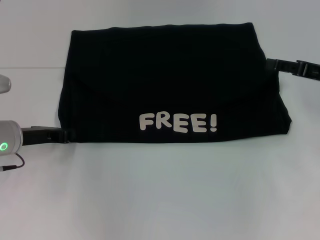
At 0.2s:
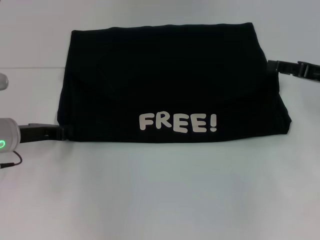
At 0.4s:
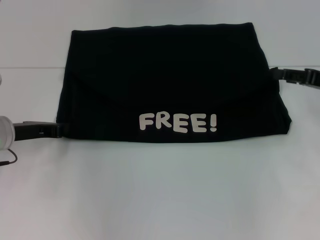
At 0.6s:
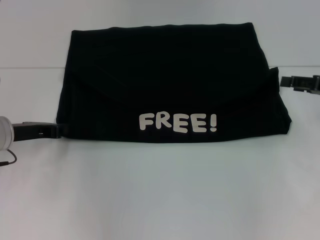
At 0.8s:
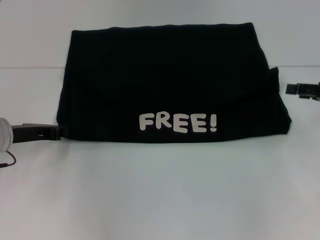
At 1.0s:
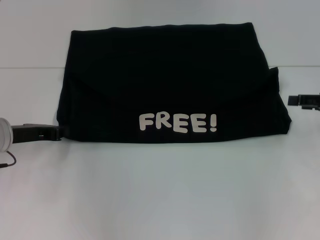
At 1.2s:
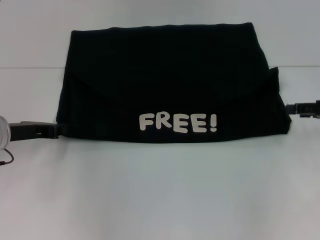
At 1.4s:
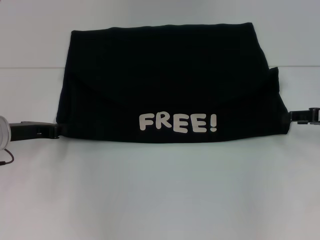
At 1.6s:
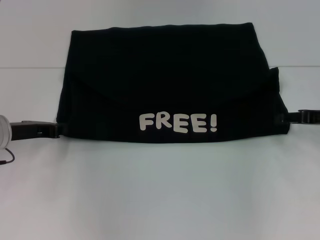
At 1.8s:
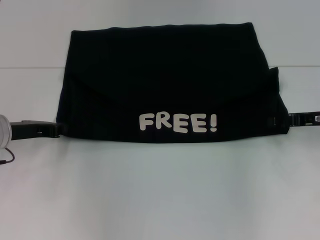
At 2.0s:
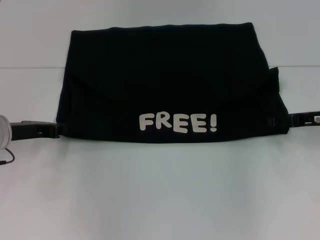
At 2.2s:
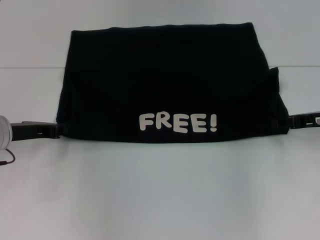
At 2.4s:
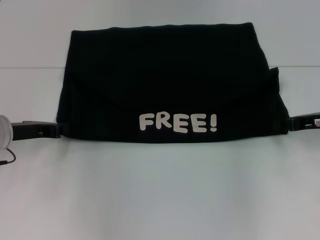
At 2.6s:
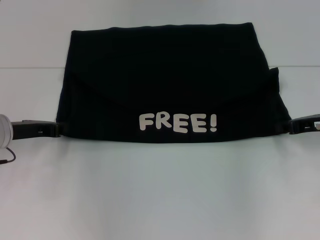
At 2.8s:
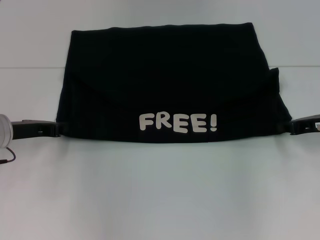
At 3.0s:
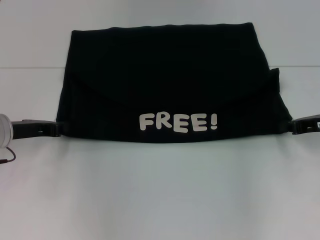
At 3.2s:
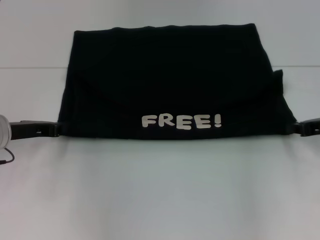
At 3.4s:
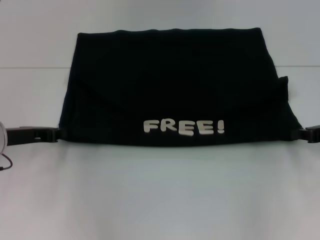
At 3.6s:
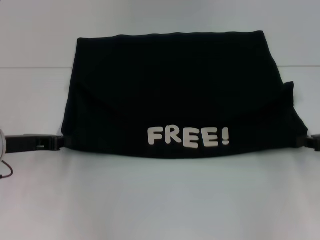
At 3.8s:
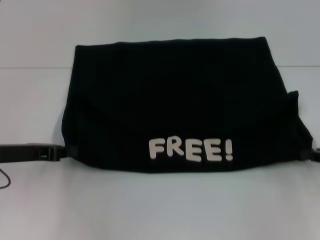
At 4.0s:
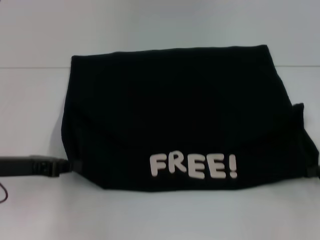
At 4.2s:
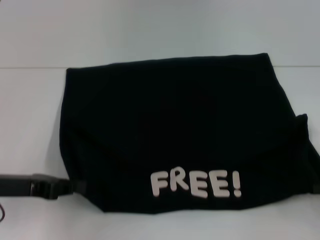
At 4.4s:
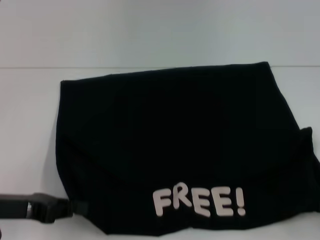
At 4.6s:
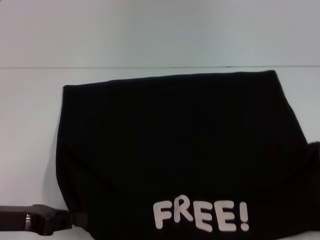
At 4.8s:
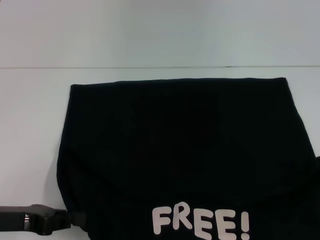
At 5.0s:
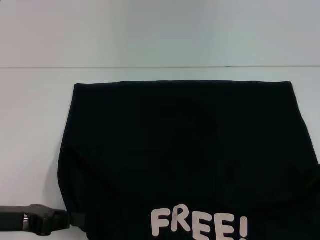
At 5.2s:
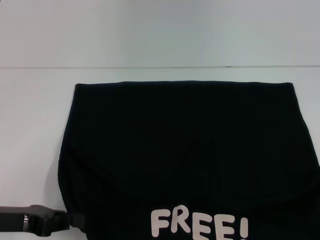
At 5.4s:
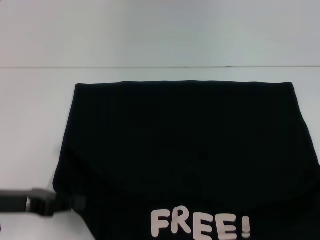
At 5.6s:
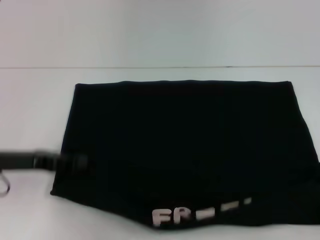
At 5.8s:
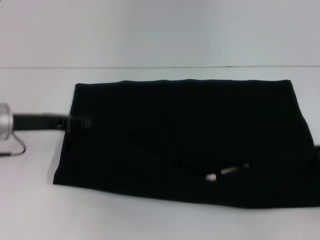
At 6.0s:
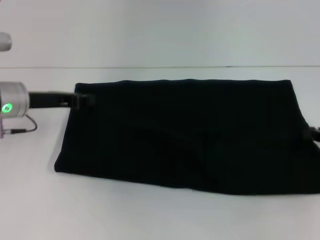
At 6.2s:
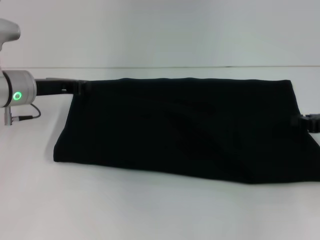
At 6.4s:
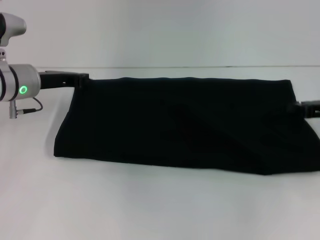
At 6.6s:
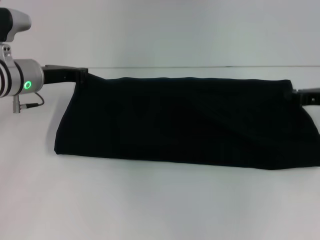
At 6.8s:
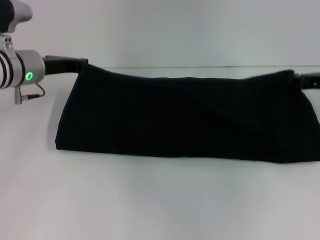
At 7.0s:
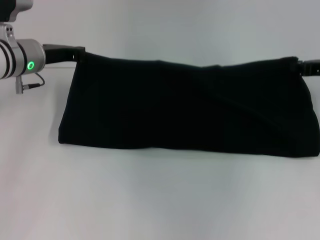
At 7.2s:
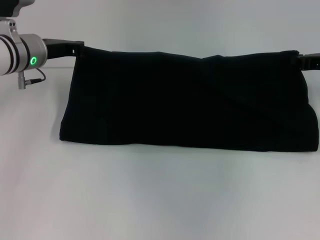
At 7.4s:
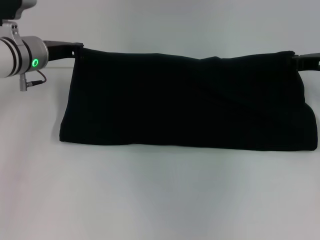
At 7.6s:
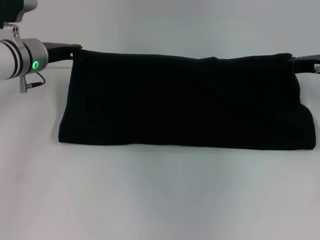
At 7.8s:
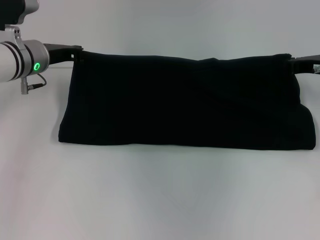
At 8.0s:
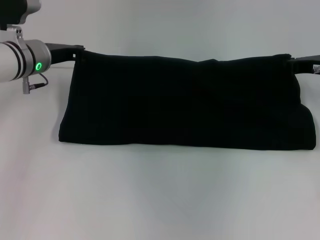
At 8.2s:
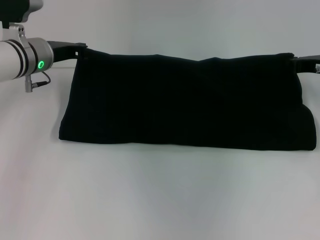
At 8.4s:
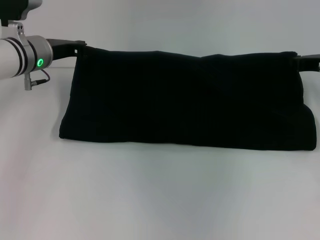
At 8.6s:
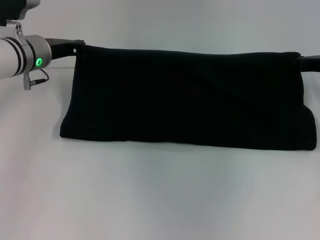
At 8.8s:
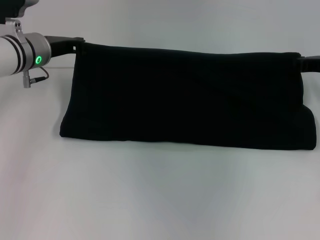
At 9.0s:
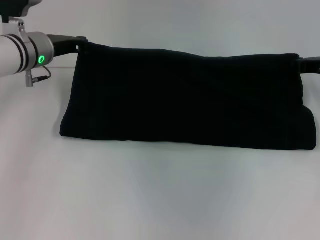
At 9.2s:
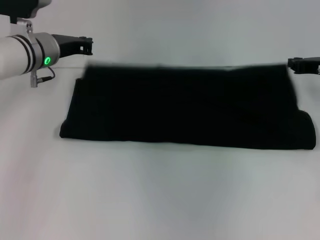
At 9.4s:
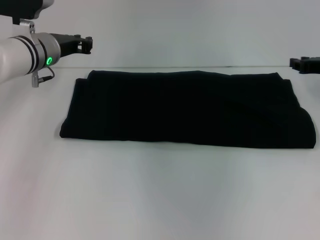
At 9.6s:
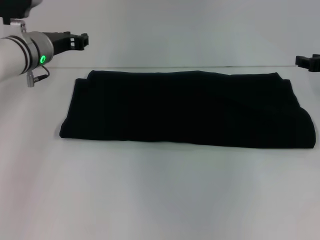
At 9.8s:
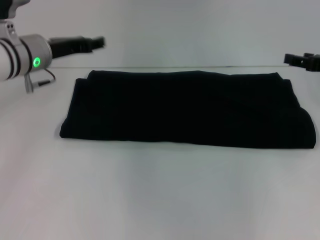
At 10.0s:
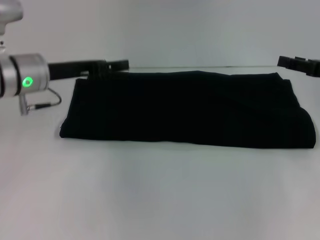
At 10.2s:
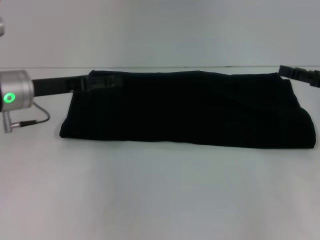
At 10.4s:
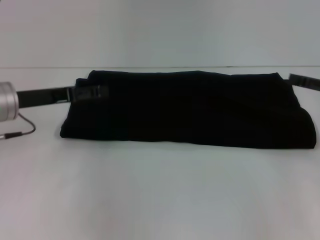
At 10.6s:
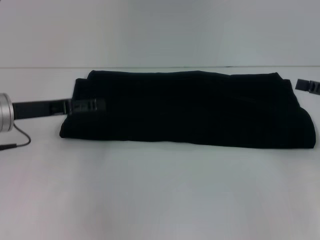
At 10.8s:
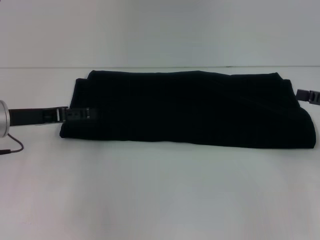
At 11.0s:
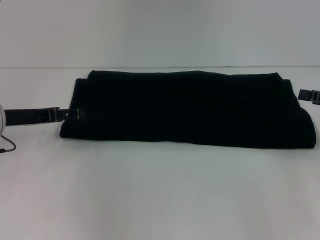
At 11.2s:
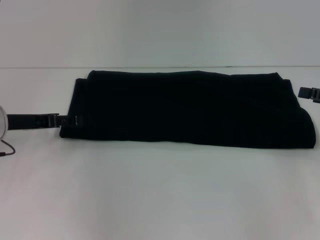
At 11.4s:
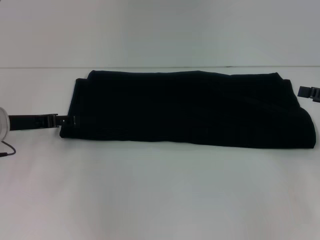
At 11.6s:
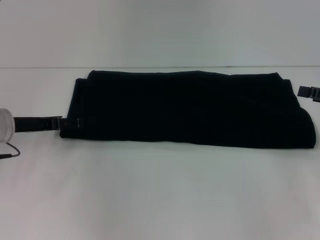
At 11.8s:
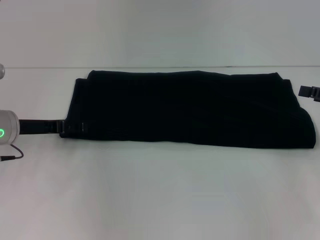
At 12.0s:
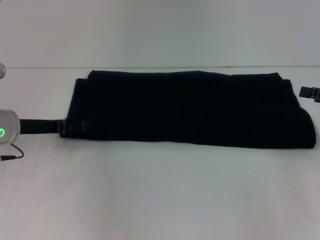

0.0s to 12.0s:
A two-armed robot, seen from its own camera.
Step, 0.0s to 5.0s: Pull the clothes with your left hand.
Step, 0.0s to 5.0s: Pull the clothes with your right hand.
Step, 5.2s to 9.2s: Fold the clothes with your right hand.
1.6s to 3.0s: The right gripper closes up.
3.0s to 4.4s: The left gripper heads backward, covering about 10 cm. Meanwhile the right gripper goes about 15 cm backward and to the right.
4.4s to 6.0s: The right gripper heads forward, covering some 10 cm, while the left gripper is displaced forward by roughly 15 cm.
6.0s to 7.6s: The left gripper heads forward, covering roughly 5 cm, while the right gripper is displaced forward and to the left by about 15 cm.
7.6s to 9.0s: Both grippers stay put.
9.0s to 10.4s: Both grippers move backward, about 10 cm. The right gripper opens; the left gripper opens its fingers.
10.4s to 12.0s: The grippers stay close to where they were, moving slightly.

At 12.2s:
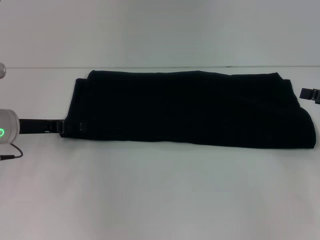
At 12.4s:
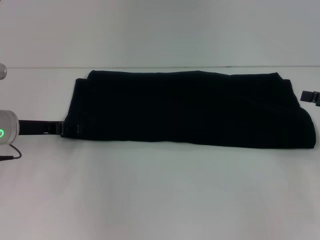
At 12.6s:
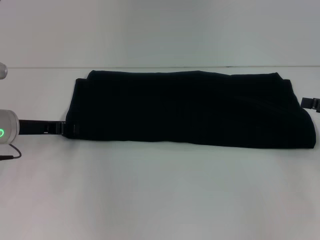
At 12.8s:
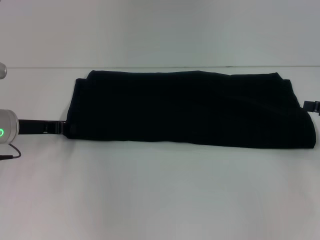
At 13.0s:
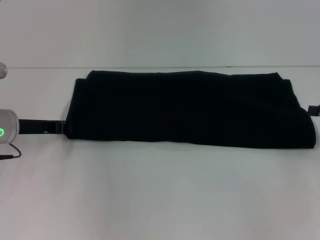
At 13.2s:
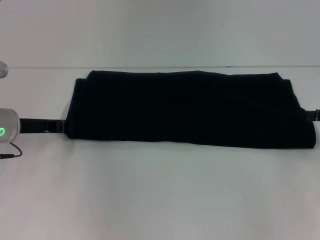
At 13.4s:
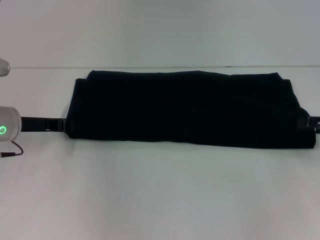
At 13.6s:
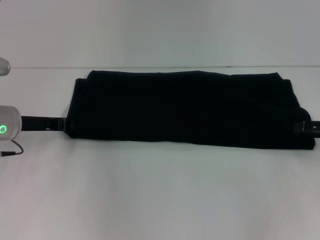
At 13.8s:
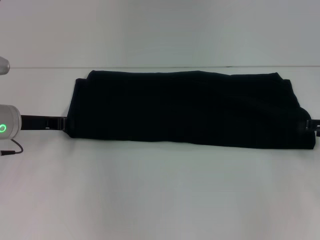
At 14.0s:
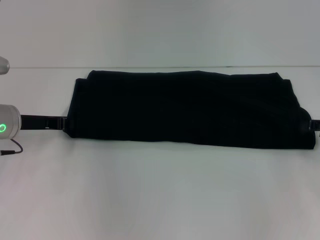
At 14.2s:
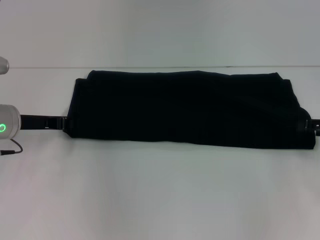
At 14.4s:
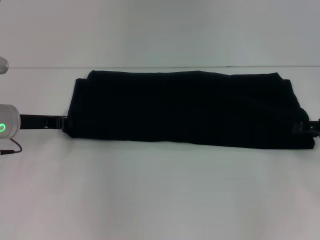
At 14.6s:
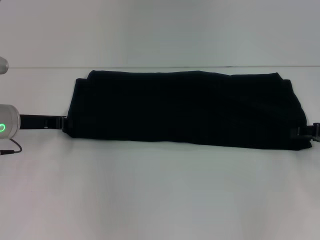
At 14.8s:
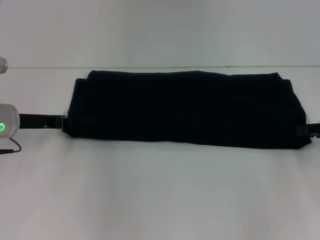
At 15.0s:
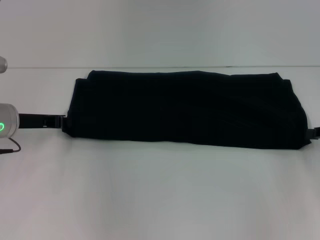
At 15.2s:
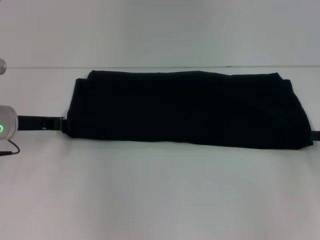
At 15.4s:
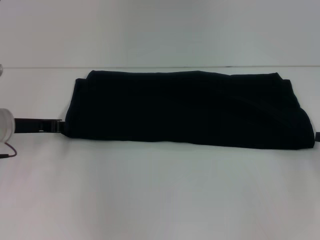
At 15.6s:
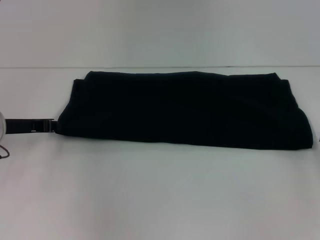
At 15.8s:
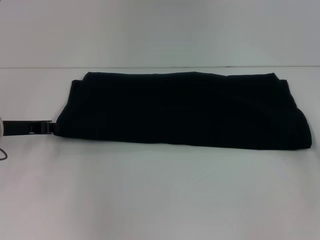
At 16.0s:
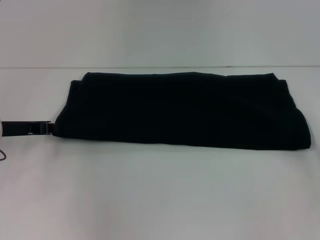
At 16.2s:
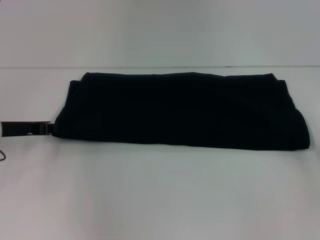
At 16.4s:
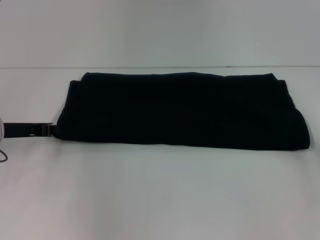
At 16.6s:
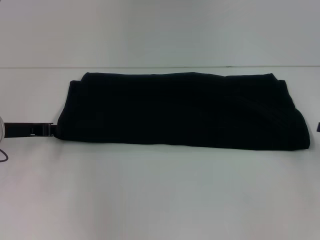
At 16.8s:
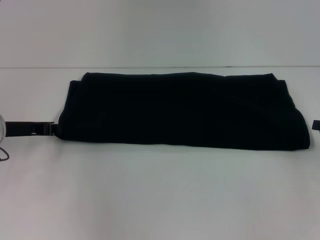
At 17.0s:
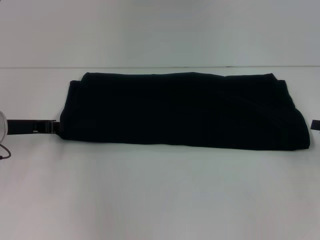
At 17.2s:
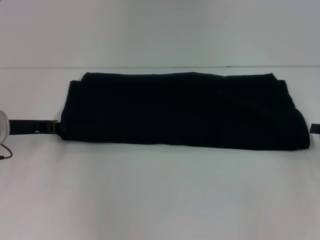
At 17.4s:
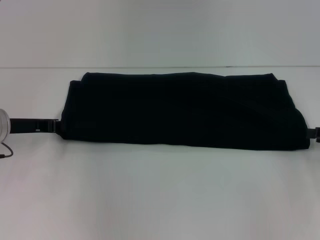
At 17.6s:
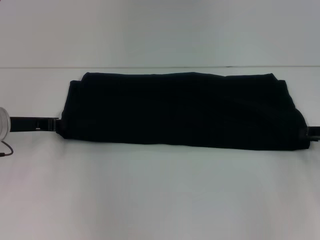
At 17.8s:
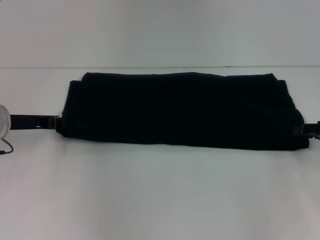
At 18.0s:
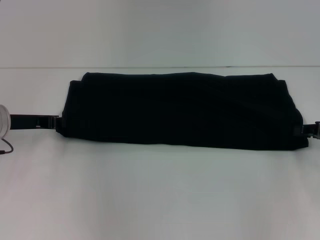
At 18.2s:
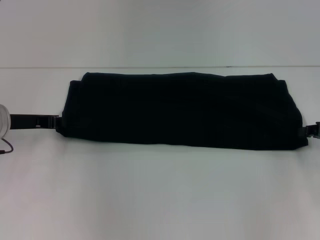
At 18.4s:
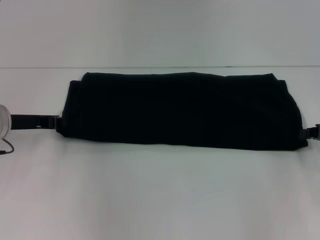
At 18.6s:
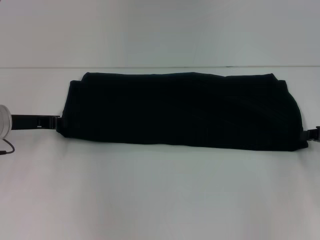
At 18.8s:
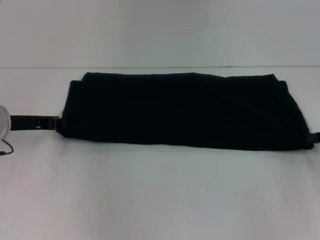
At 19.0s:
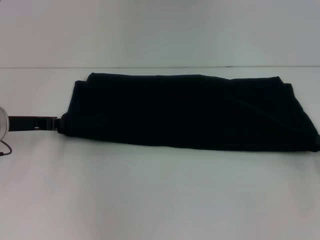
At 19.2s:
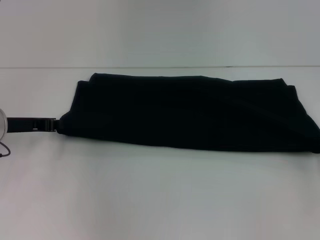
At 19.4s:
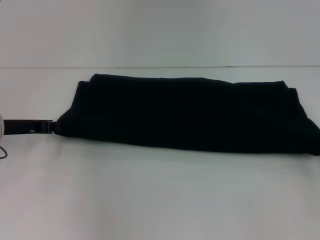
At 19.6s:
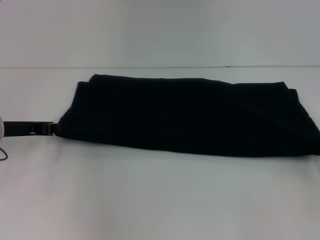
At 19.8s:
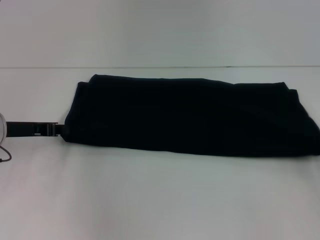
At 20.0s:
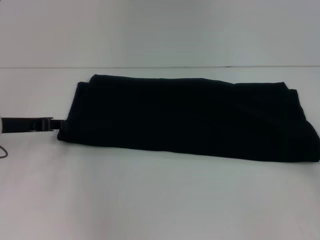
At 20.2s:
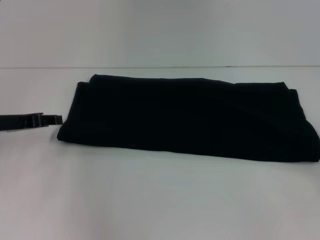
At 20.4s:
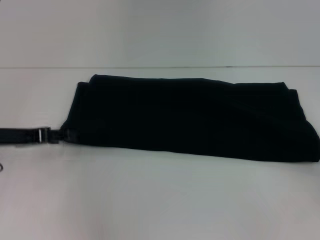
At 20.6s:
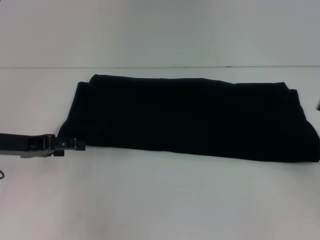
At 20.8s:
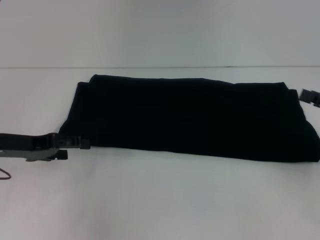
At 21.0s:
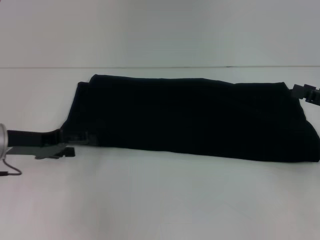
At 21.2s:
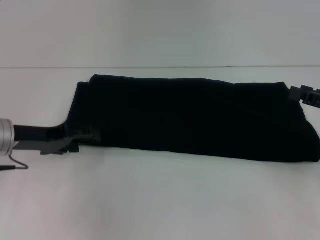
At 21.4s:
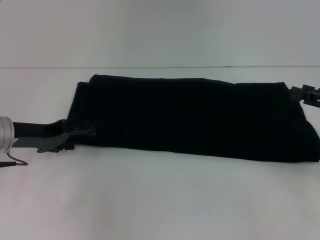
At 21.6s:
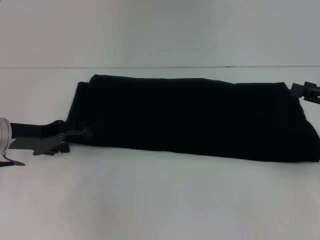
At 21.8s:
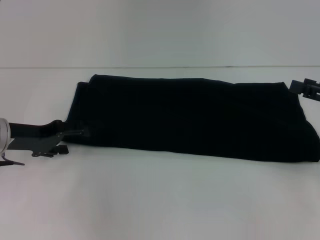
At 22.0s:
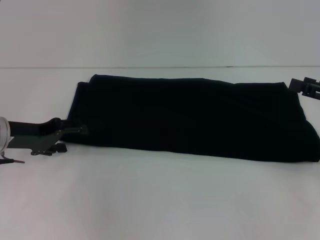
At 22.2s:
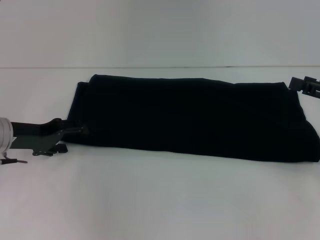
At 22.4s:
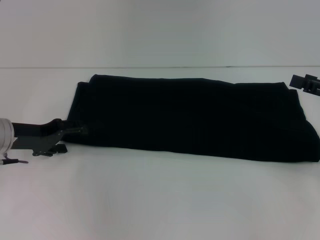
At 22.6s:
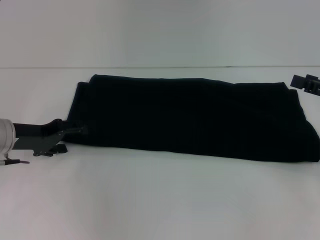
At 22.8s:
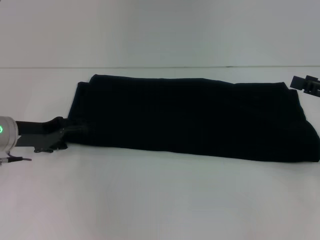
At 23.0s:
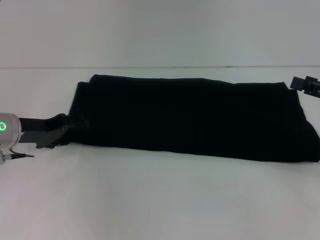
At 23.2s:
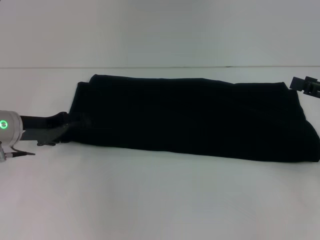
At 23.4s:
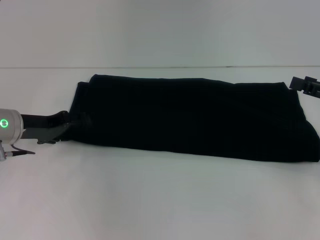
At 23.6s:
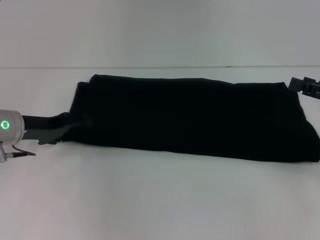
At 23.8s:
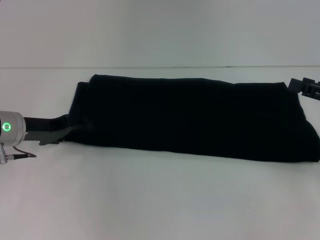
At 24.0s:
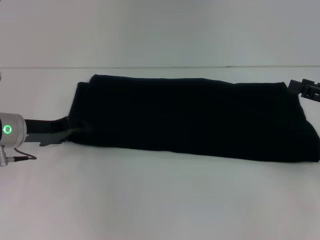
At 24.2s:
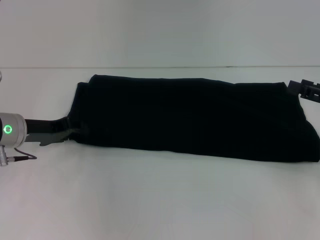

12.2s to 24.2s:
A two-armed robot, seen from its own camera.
12.2s to 13.8s: The left gripper closes its fingers.
15.2s to 18.2s: The grippers stay close to where they were, moving slightly.
18.2s to 19.8s: The right gripper changes place by some 5 cm.
19.8s to 21.2s: The right gripper changes place by roughly 5 cm, and opens up; the left gripper opens up.
21.2s to 22.6s: The grippers stay close to where they were, moving slightly.
22.6s to 24.2s: The left gripper closes up.
